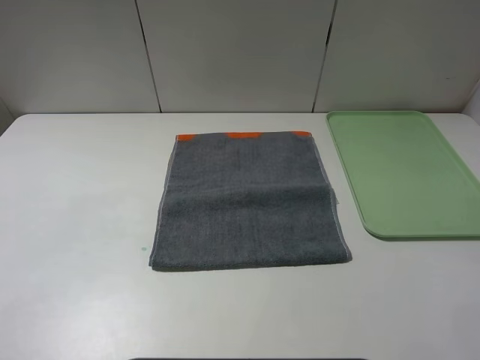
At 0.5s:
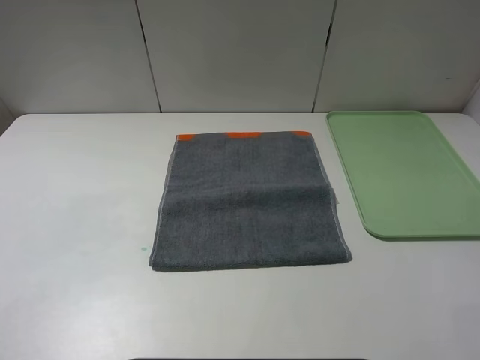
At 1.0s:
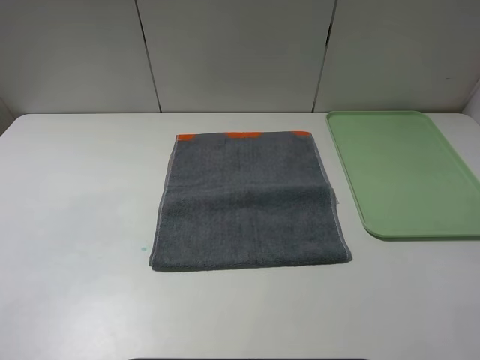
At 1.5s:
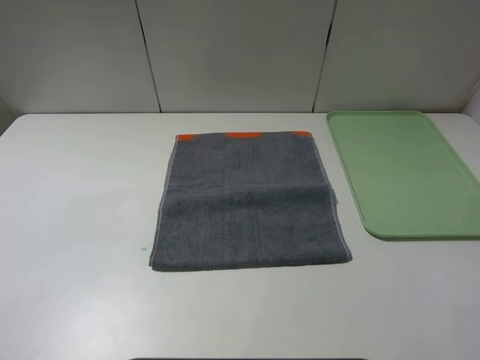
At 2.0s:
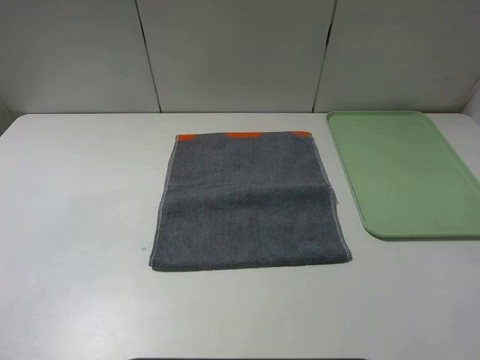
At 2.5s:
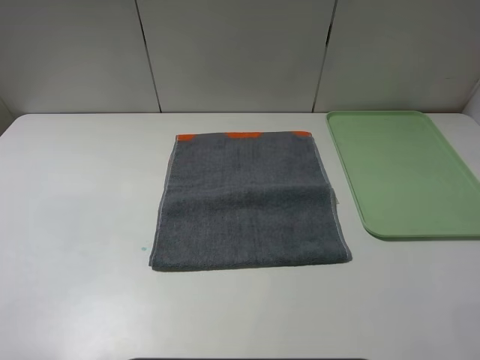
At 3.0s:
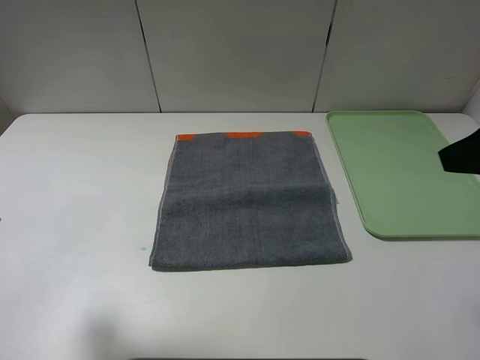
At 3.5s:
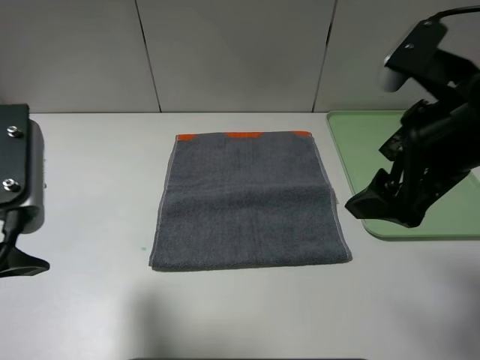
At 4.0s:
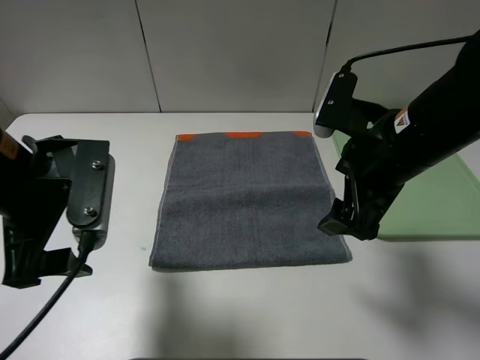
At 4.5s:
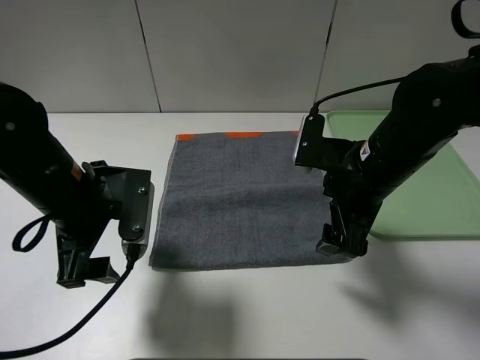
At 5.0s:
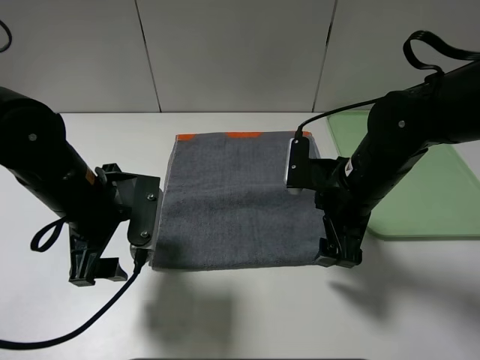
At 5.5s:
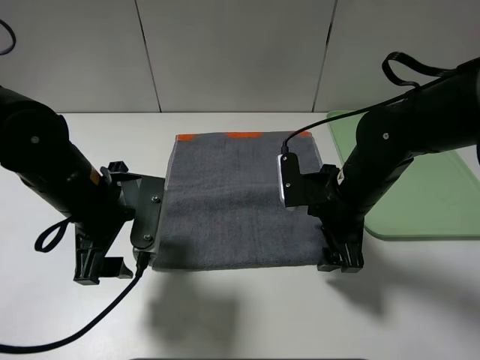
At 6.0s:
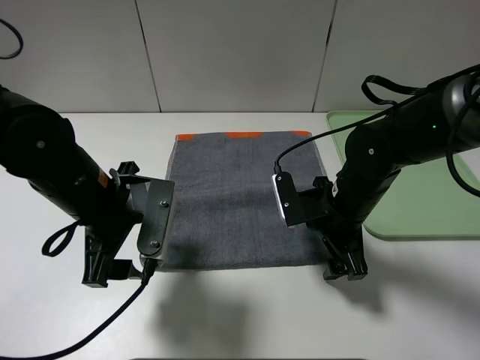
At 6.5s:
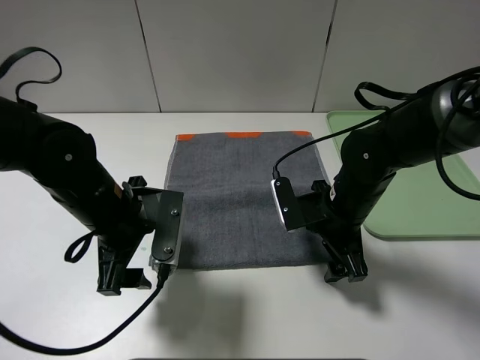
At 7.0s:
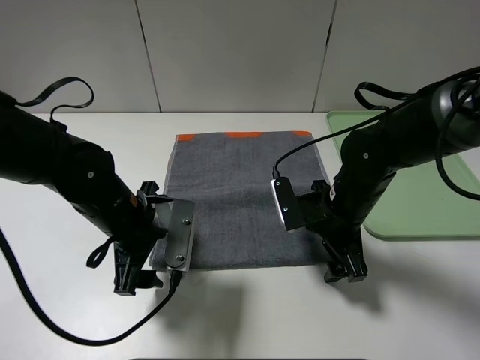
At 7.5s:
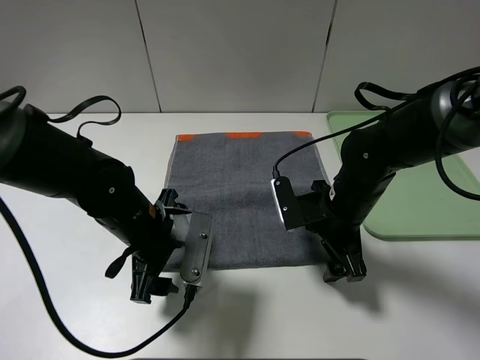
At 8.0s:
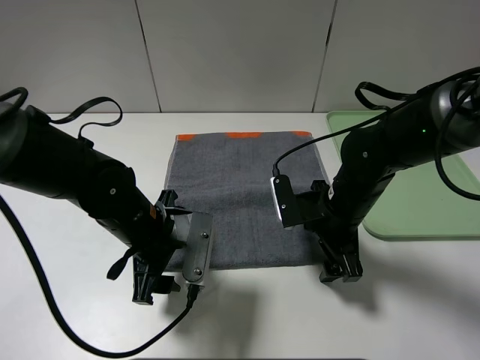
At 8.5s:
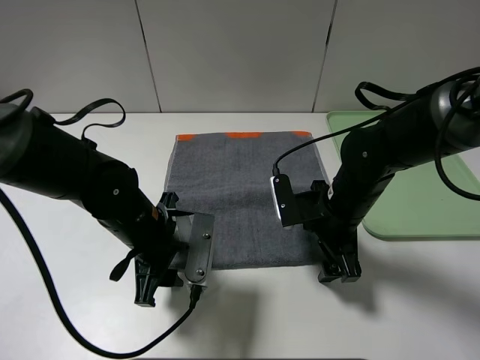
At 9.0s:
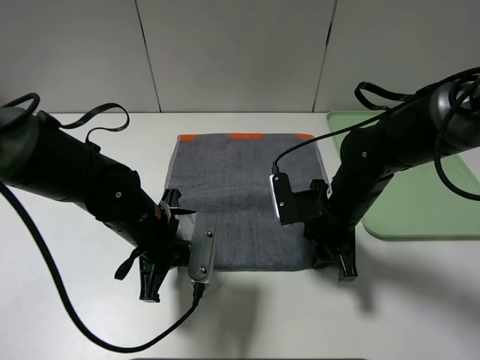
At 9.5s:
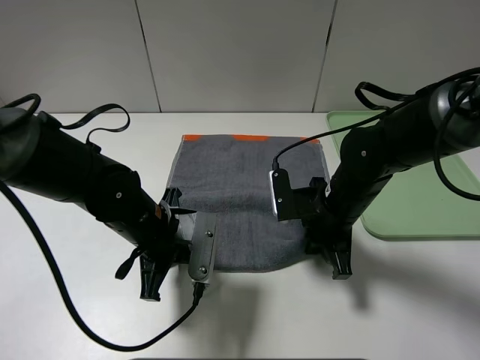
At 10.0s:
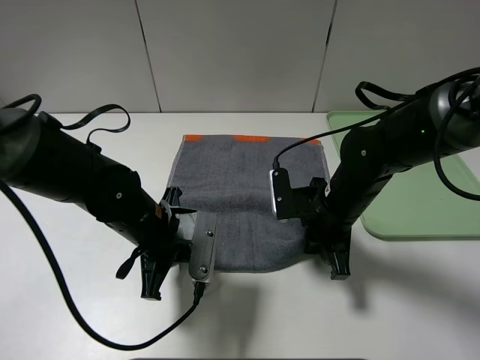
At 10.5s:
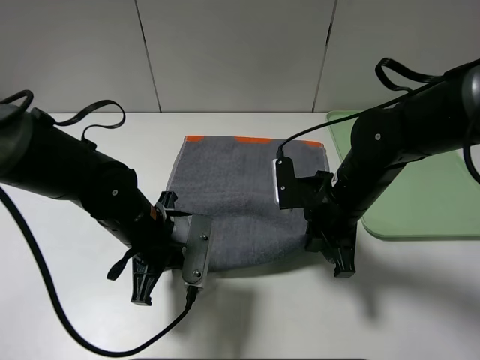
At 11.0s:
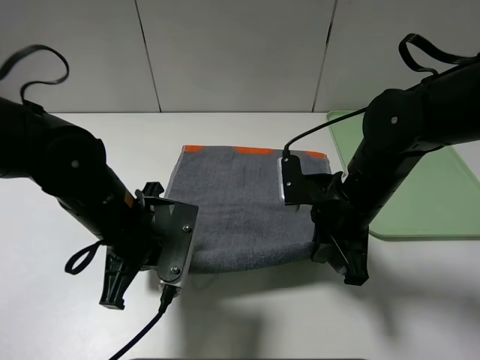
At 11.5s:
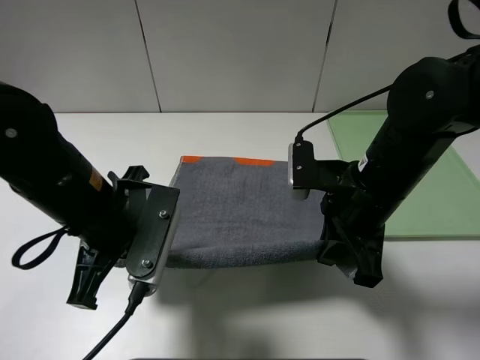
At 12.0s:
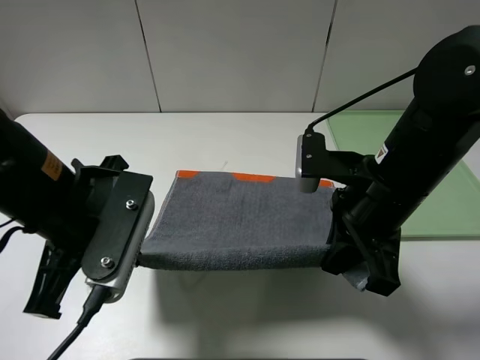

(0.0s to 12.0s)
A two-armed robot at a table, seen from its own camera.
0.0s - 2.0s: The two grippers keep their place.
2.0s - 4.0s: The left gripper is displaced forward and to the right by roughly 25 cm; the right gripper goes approximately 25 cm forward and to the left.
4.0s - 6.0s: The left gripper heads downward, covering some 5 cm. The right gripper moves downward, about 10 cm.
6.0s - 8.0s: The left gripper is displaced downward by some 5 cm.
8.0s - 10.0s: The right gripper closes its fingers, while the left gripper closes up.
10.0s - 12.0s: Both grippers travel together upward and backward, some 15 cm.

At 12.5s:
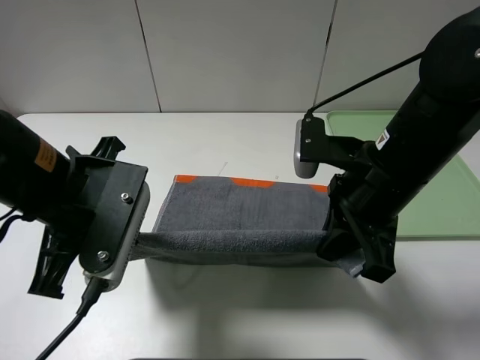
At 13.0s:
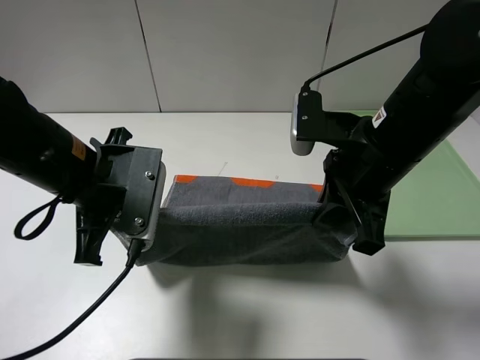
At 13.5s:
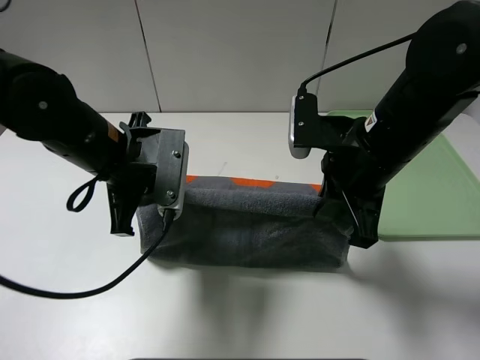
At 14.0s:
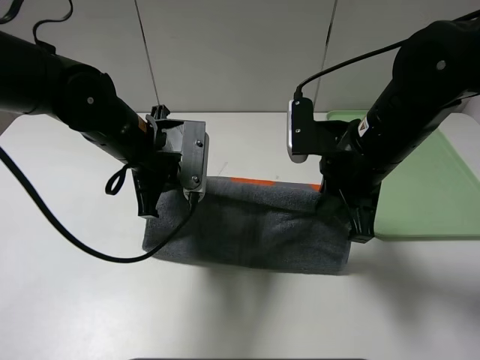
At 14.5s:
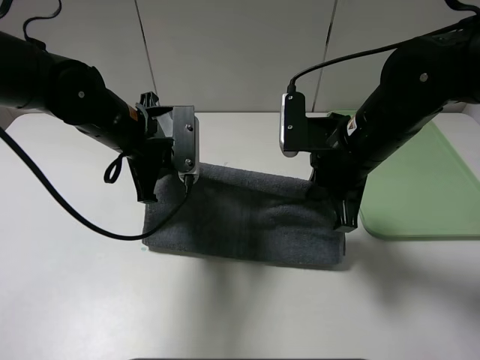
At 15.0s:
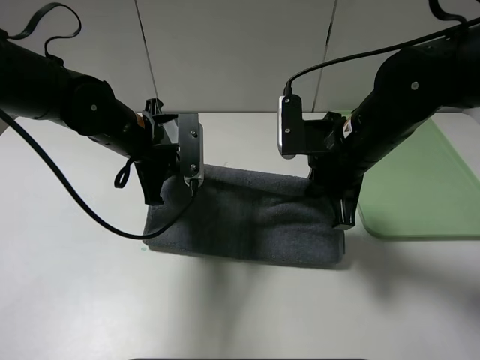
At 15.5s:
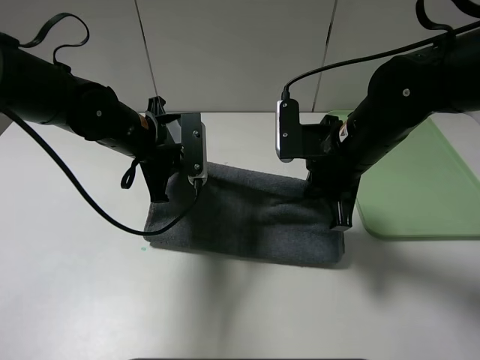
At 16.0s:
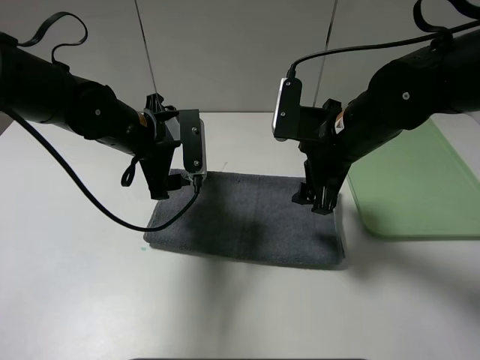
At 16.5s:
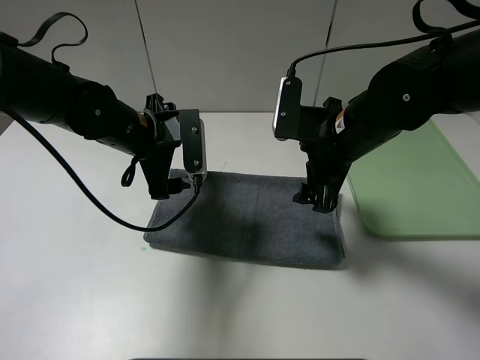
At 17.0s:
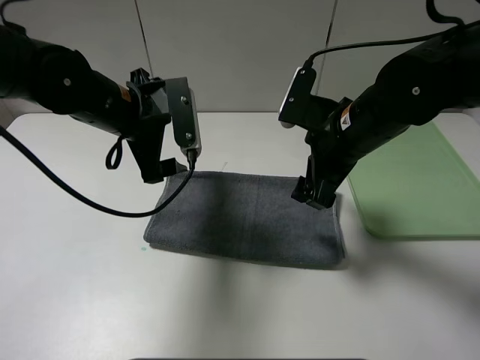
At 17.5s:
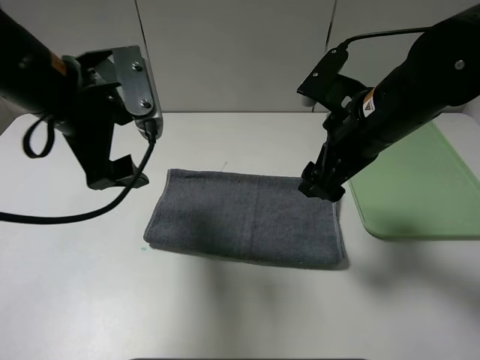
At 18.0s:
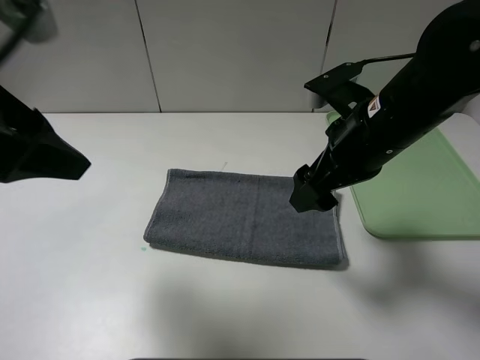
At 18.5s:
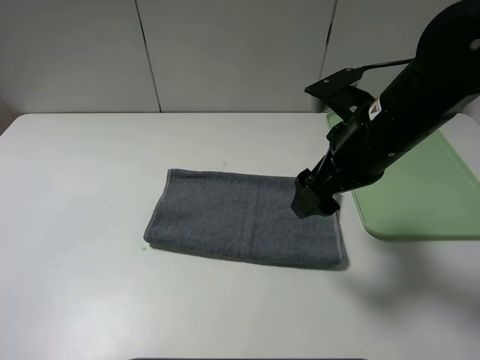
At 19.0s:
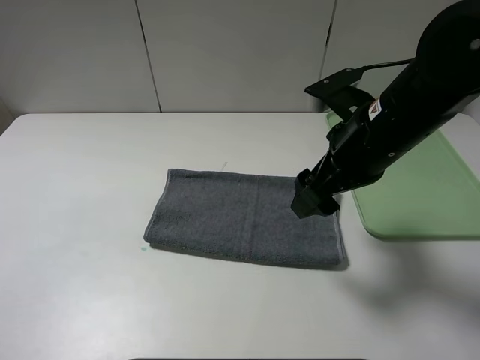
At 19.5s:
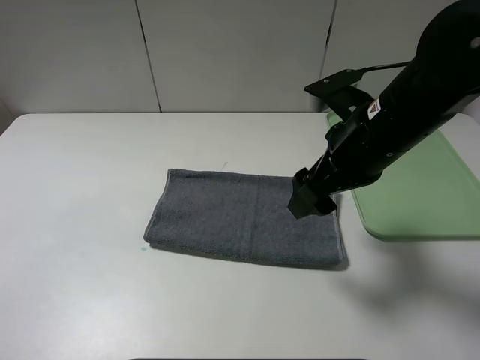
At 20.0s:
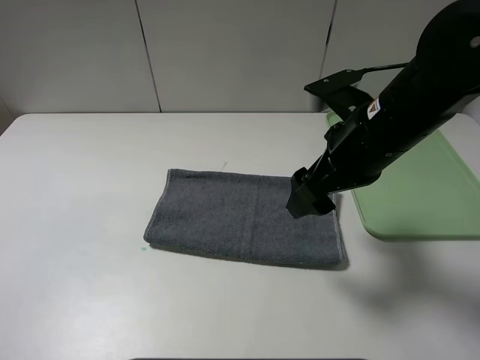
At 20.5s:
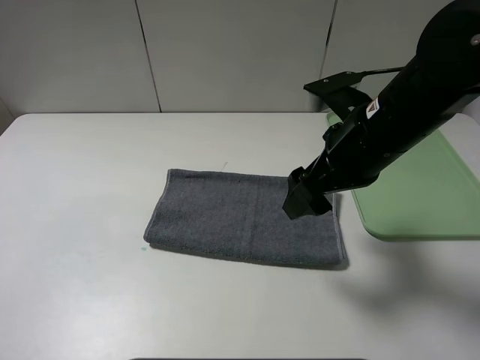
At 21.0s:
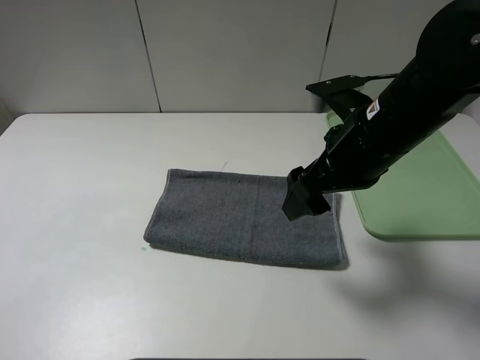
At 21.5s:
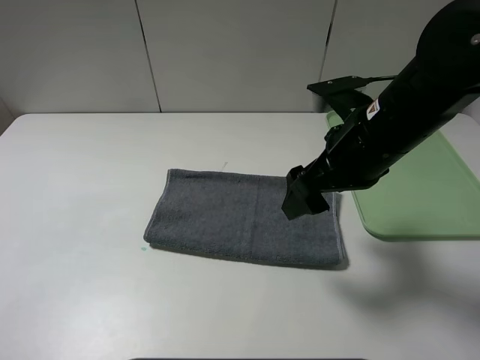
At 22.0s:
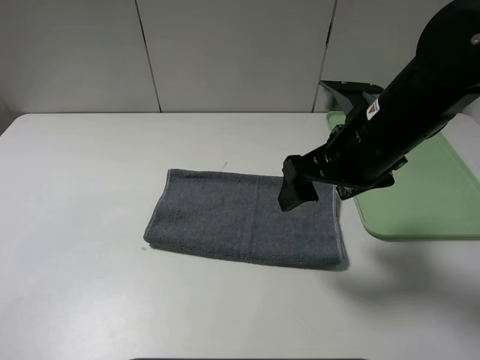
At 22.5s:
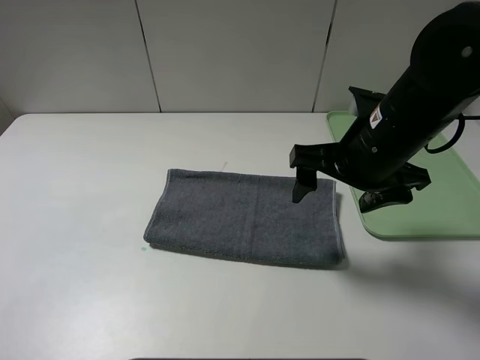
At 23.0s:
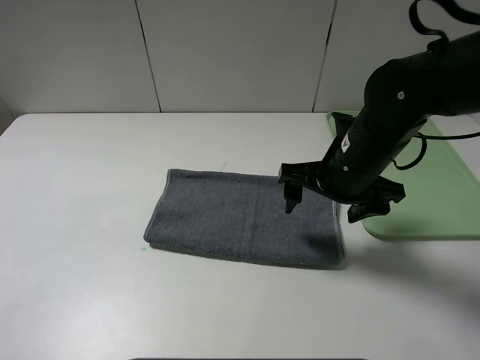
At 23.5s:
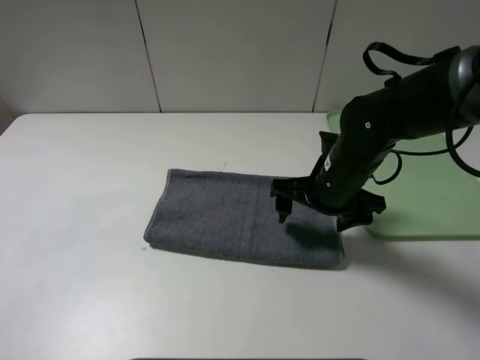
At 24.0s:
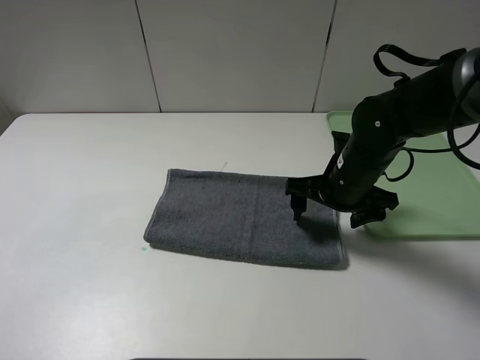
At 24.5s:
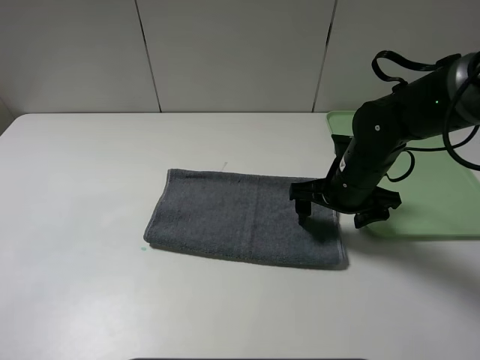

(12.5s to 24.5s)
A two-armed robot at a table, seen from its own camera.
Step, 12.5s - 16.0s: Fold the grey towel upwards.
12.5s - 14.5s: The right gripper heads forward, covering approximately 5 cm, while the left gripper is displaced forward by roughly 15 cm.
14.5s - 16.5s: The right gripper opens up, while the left gripper opens.
16.5s - 18.5s: The right gripper moves approximately 5 cm, while the left gripper is displaced backward, upward and to the left by about 35 cm.
22.5s - 24.5s: The right gripper heads downward, covering some 10 cm.

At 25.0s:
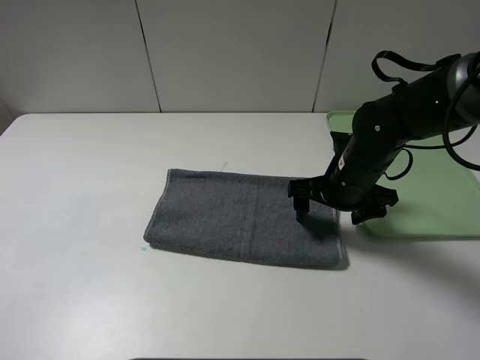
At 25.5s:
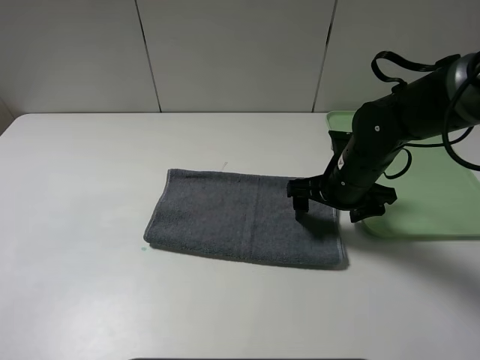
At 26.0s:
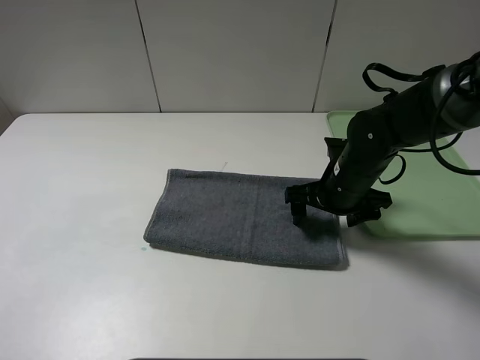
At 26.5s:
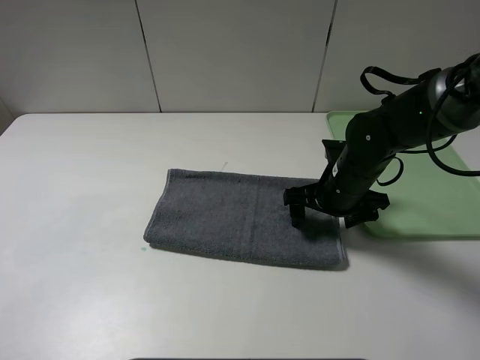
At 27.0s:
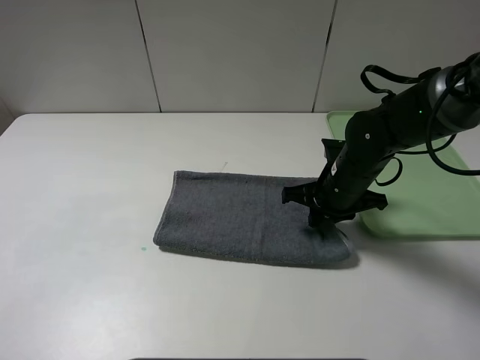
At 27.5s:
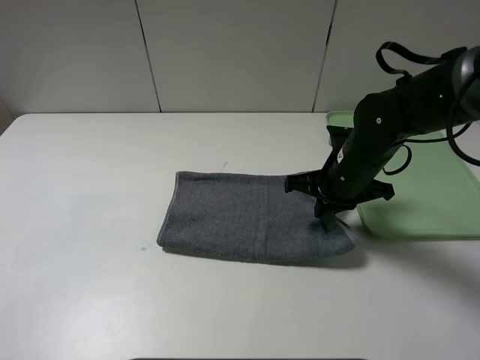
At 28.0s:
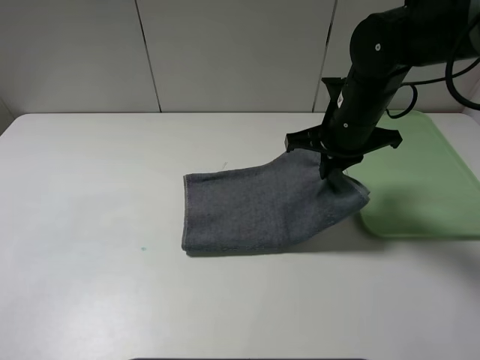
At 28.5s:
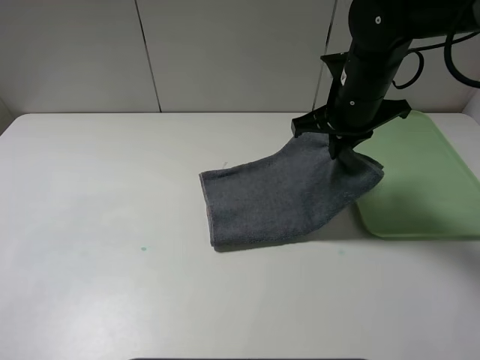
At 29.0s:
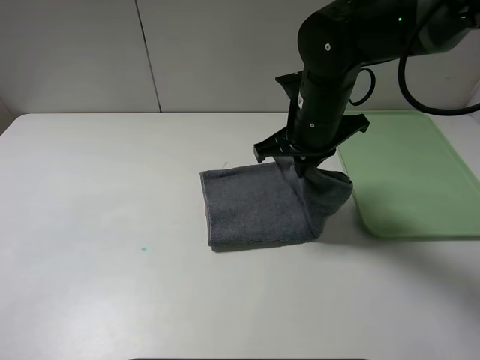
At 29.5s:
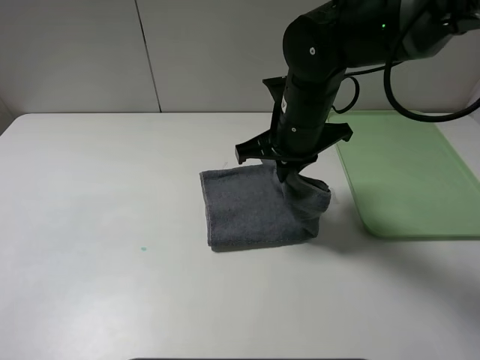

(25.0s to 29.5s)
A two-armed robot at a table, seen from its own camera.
25.0s - 27.0s: The right gripper closes up.
27.0s - 29.5s: The right gripper goes some 15 cm upward and to the left.
